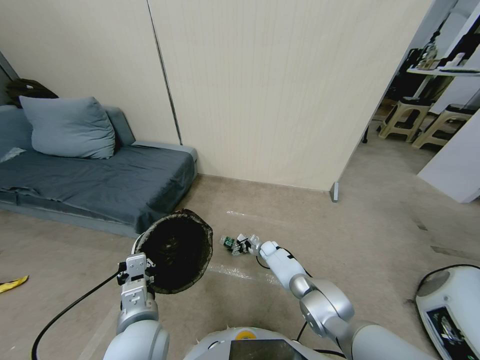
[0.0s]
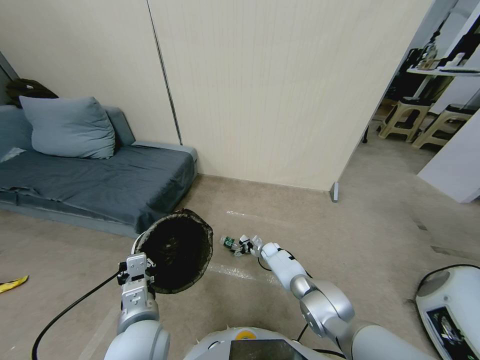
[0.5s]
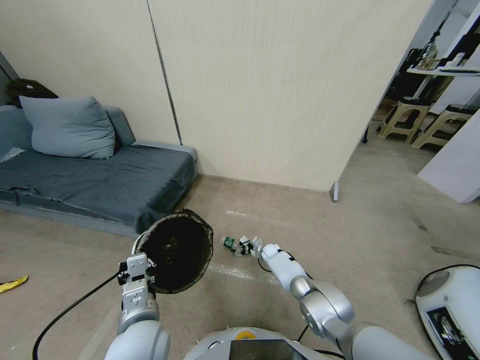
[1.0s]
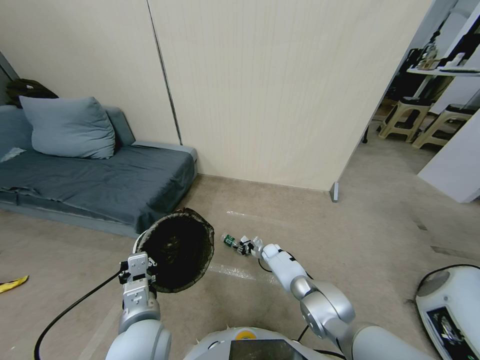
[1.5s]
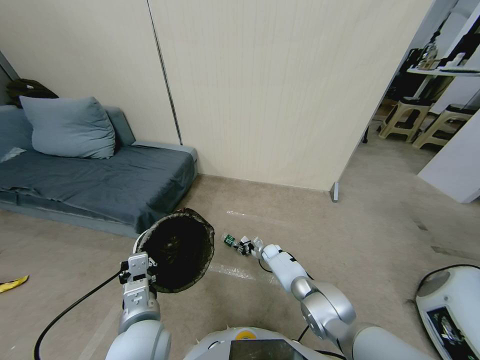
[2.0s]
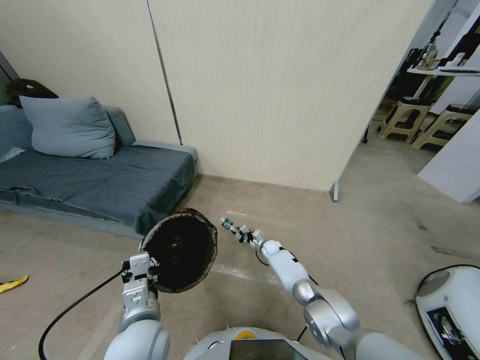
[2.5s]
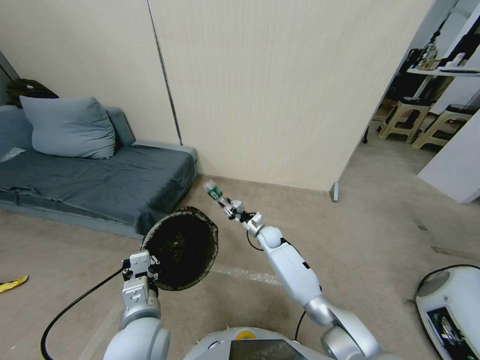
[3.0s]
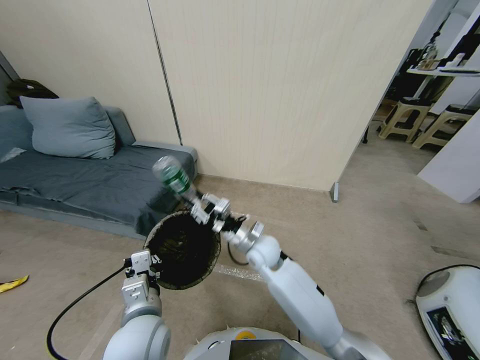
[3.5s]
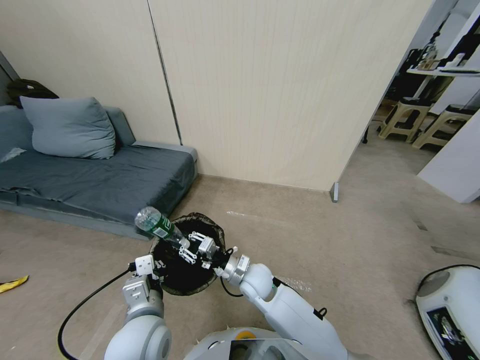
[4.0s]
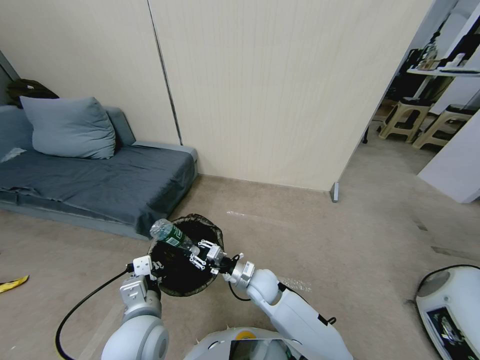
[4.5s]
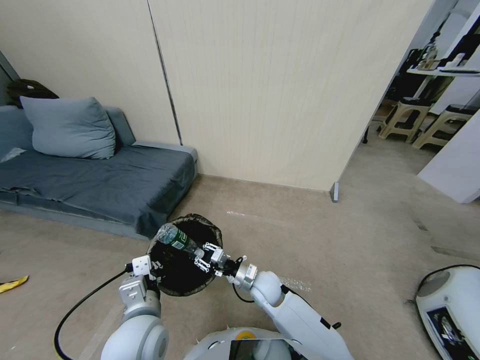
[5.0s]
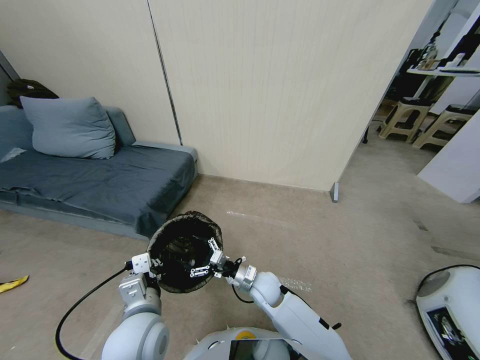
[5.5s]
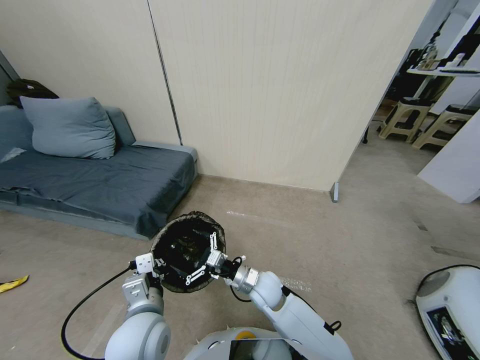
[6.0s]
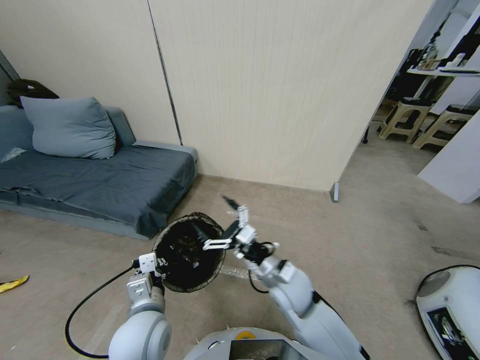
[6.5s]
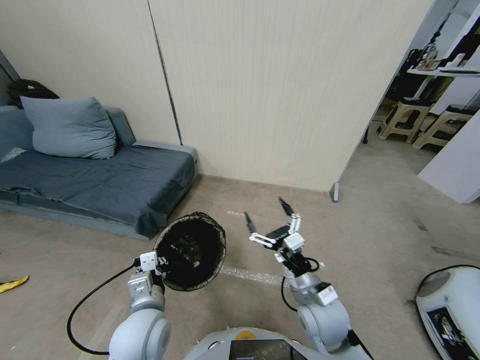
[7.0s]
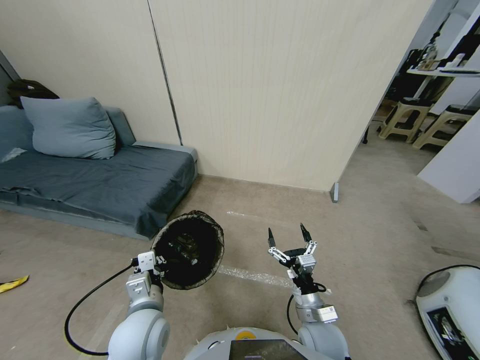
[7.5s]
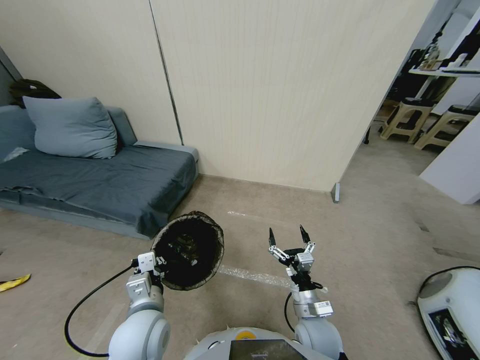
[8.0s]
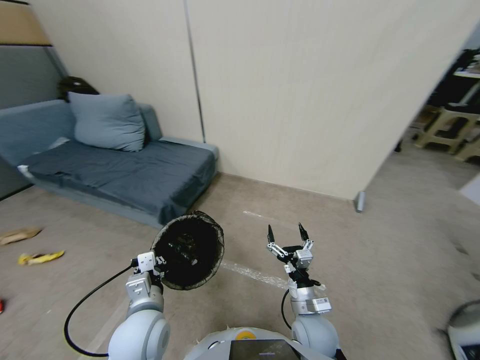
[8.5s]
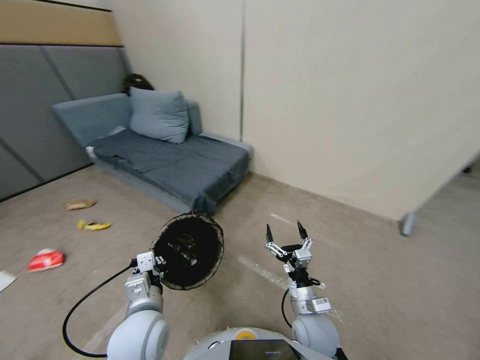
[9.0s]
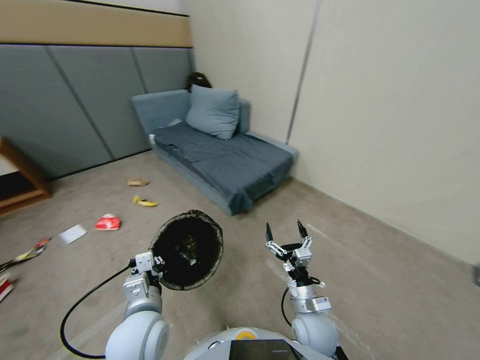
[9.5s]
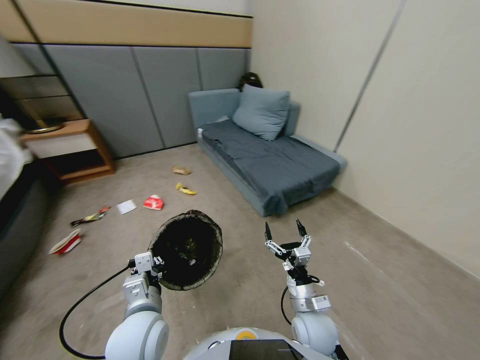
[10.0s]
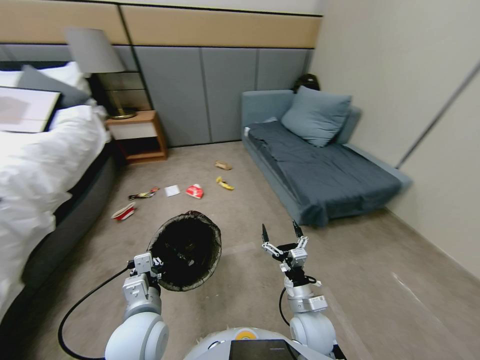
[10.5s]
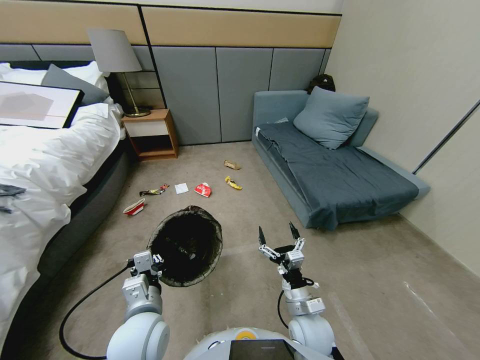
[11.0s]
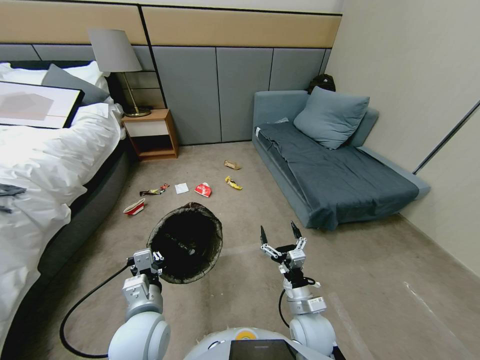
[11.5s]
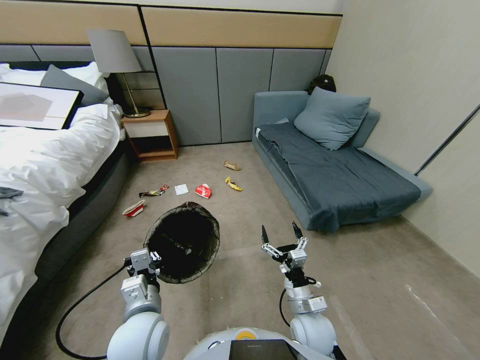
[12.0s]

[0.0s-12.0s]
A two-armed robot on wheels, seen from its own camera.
Task of the whole recording: Pick up the trash bin, then pick up the garbage from the floor and place it into the trash bin.
0.0s to 2.0s: The right gripper closes its fingers.
2.0s to 4.0s: The right gripper shifts about 30 cm upward, backward and to the left.
4.0s to 6.0s: The right gripper opens.
6.0s to 8.0s: The right gripper heads backward and to the right, covering roughly 15 cm.

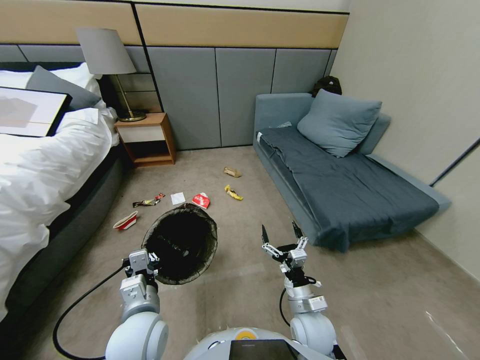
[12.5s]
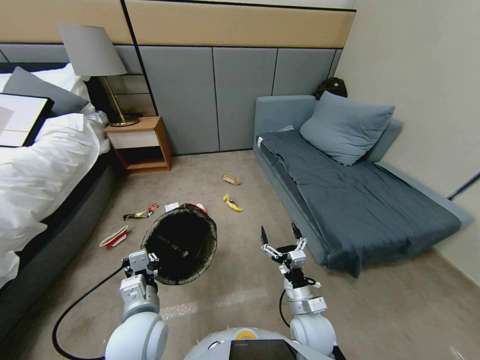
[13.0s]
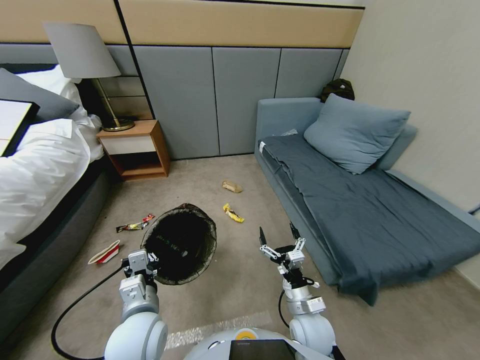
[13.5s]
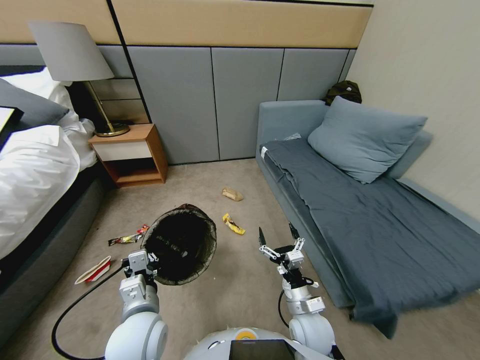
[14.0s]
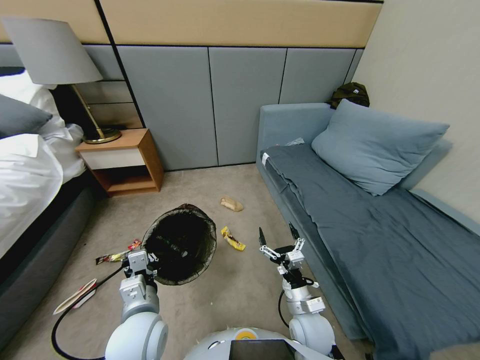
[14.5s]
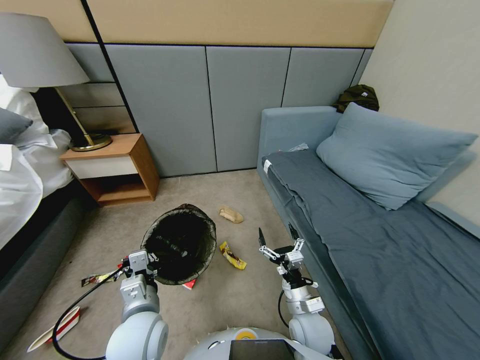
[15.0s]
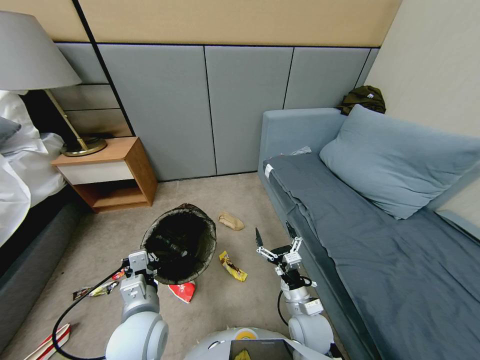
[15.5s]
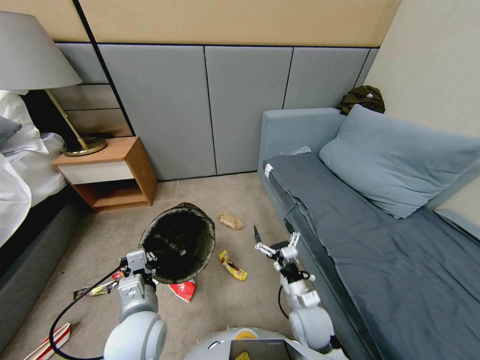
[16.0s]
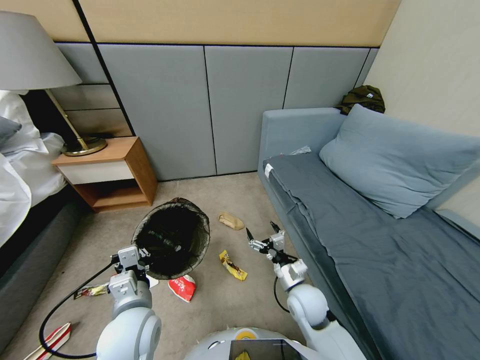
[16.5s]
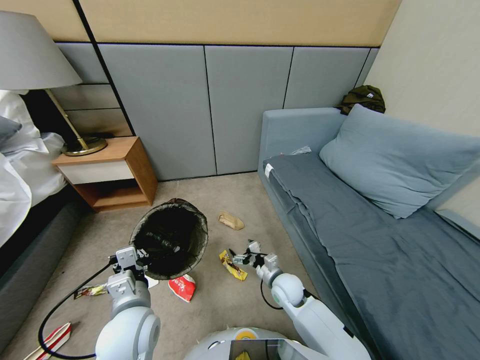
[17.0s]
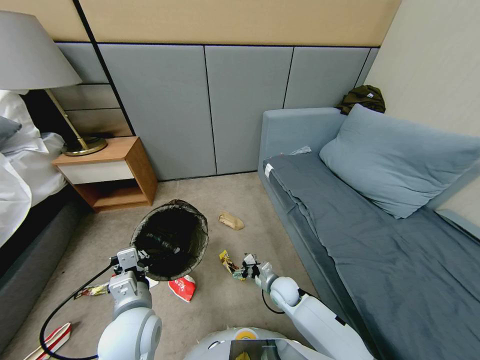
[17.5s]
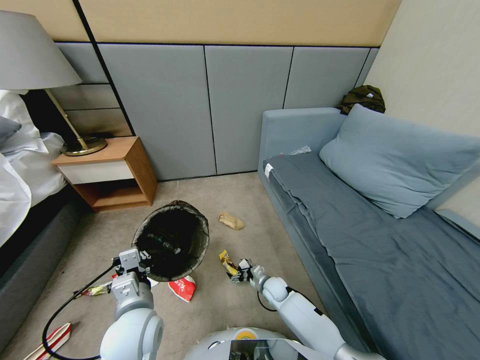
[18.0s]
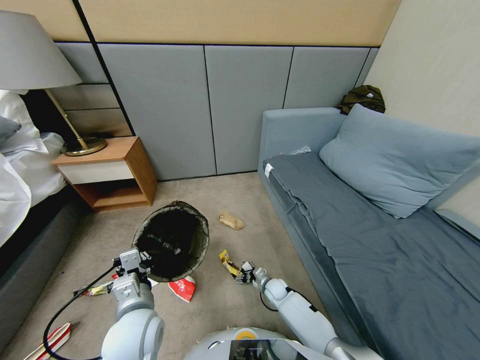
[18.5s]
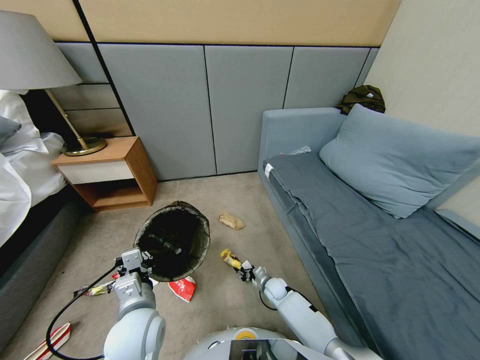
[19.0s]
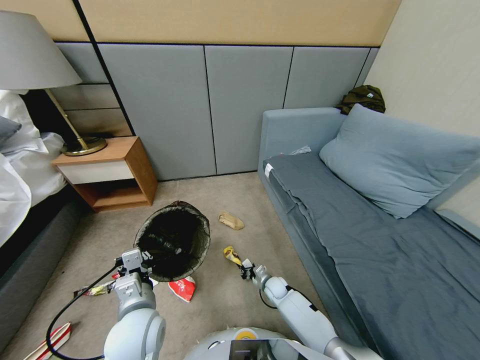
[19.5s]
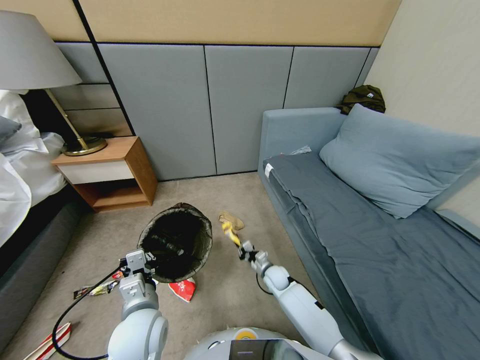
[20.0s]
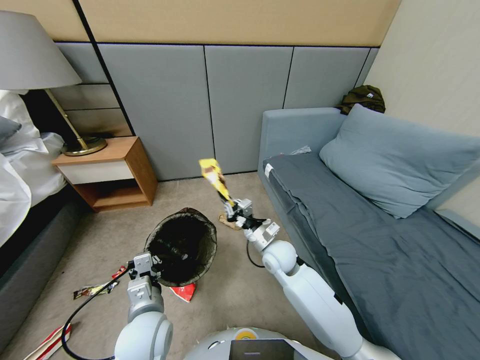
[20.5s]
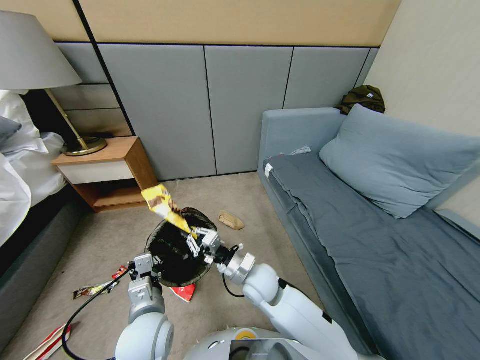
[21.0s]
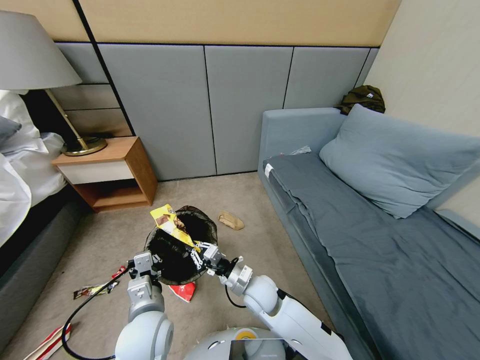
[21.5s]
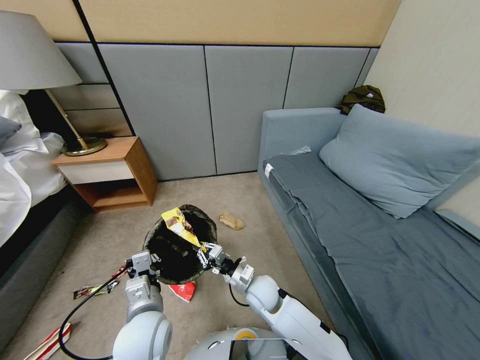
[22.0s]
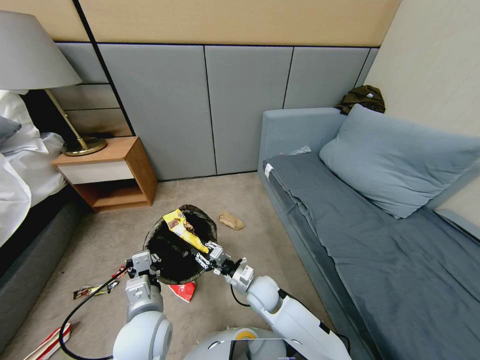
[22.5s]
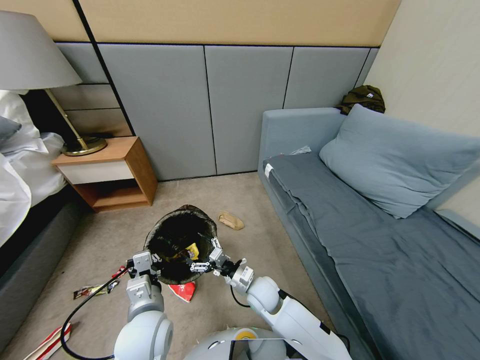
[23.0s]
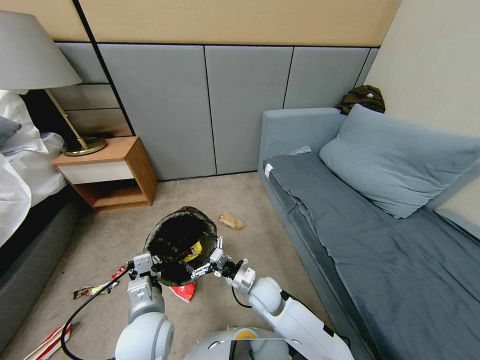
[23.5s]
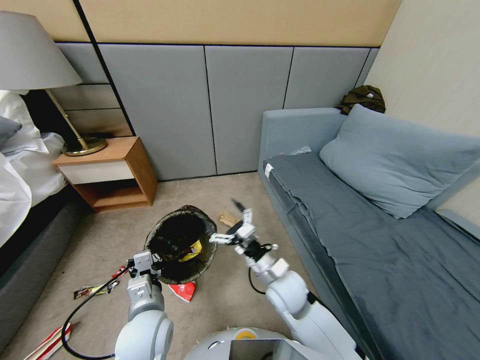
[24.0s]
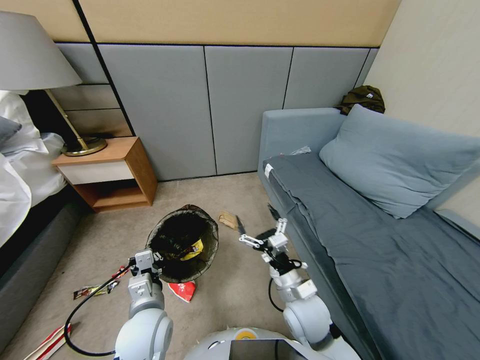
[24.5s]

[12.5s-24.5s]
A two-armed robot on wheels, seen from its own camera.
Task of the whole recording: Pick up the trash bin, then pick up the garbage from the floor and place it into the trash bin.
14.5s to 16.5s: The right gripper goes some 10 cm forward.
16.5s to 18.5s: The right gripper moves downward, approximately 20 cm.
18.5s to 20.5s: The right gripper shifts about 30 cm upward, and closes its fingers.
20.5s to 22.5s: The right gripper is displaced downward by about 10 cm, and opens its fingers.
22.5s to 24.5s: The right gripper shifts roughly 15 cm to the right, backward and upward, and opens its fingers.

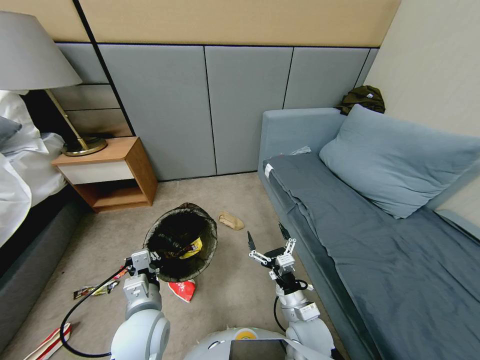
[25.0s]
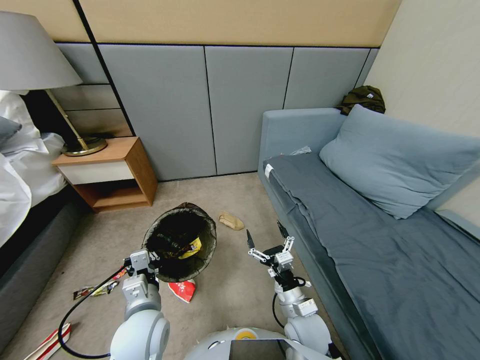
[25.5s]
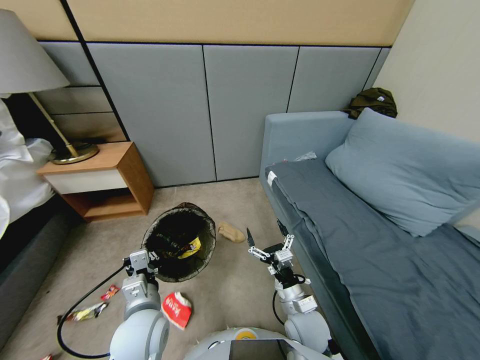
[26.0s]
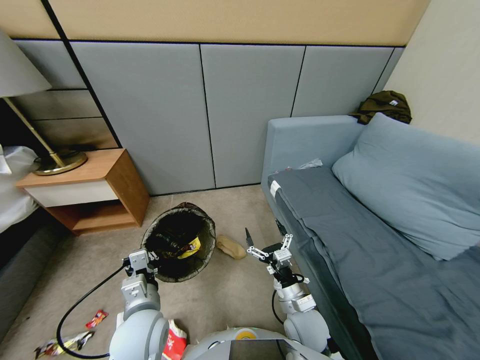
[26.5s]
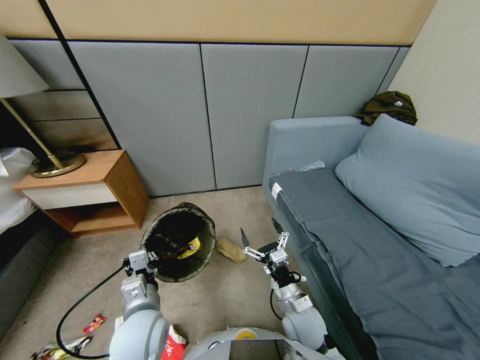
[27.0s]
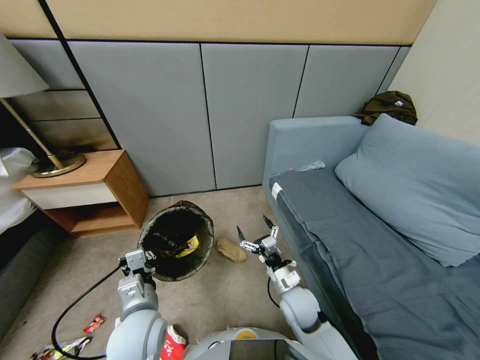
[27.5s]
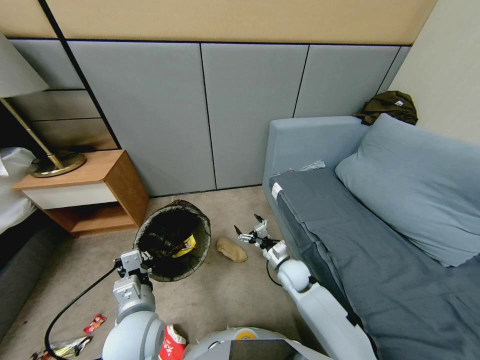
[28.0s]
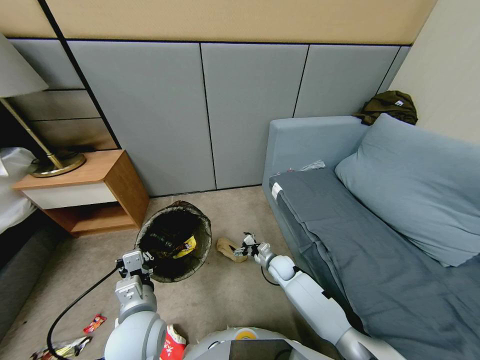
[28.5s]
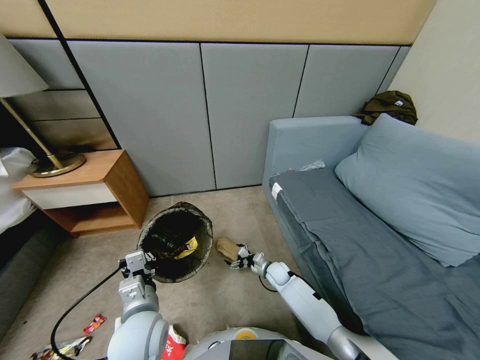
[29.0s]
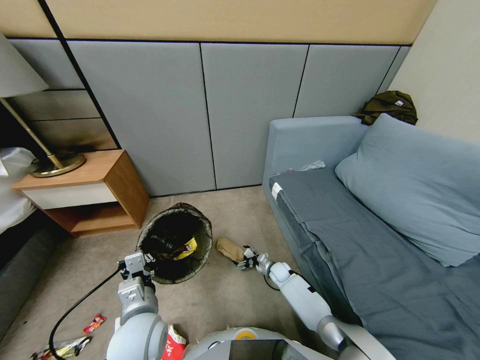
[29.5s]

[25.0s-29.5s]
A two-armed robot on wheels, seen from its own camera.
Task of the whole recording: Pick up the trash bin, then pick up the garbage from the floor and place it into the trash bin.
27.0s to 29.5s: The right gripper travels downward and forward by some 30 cm.
